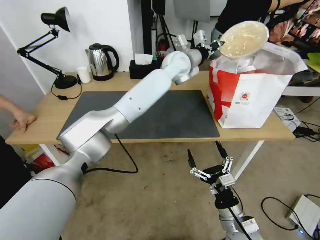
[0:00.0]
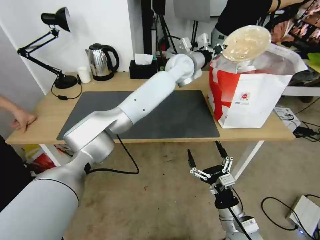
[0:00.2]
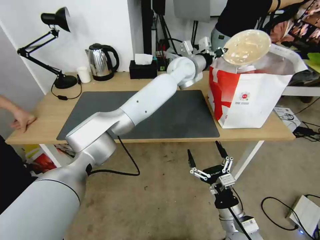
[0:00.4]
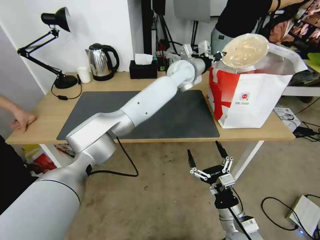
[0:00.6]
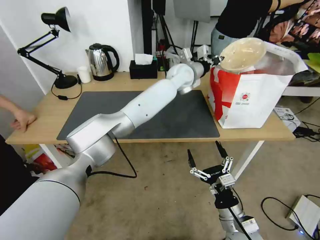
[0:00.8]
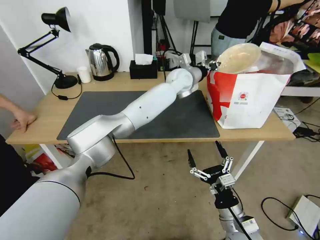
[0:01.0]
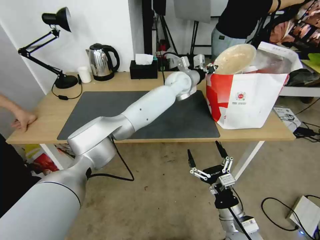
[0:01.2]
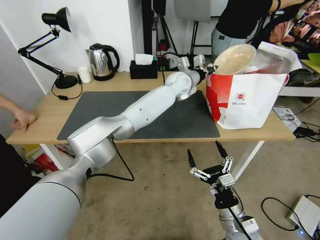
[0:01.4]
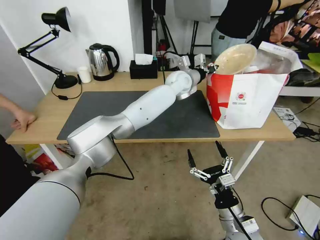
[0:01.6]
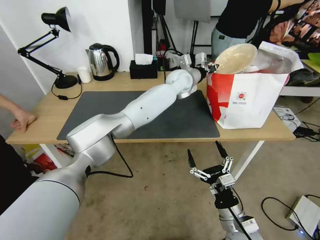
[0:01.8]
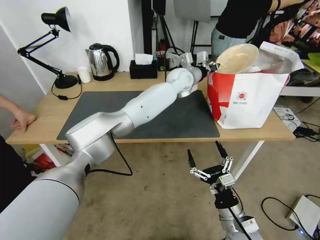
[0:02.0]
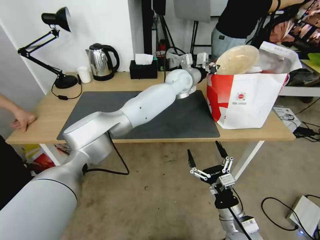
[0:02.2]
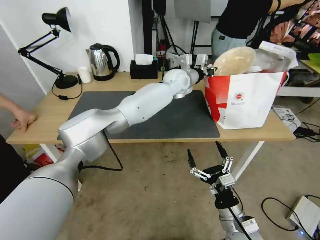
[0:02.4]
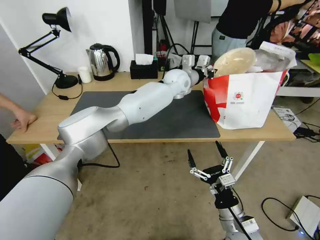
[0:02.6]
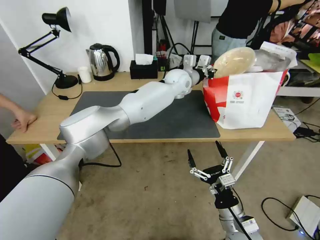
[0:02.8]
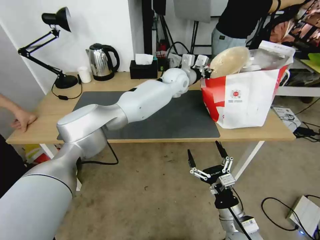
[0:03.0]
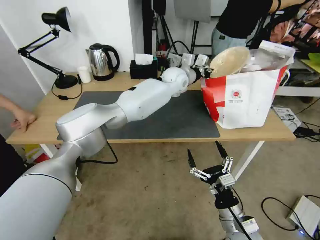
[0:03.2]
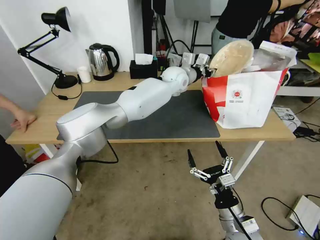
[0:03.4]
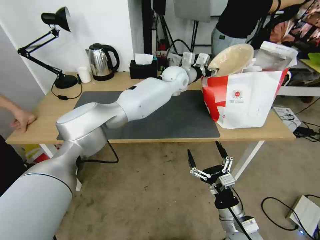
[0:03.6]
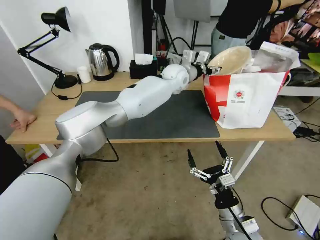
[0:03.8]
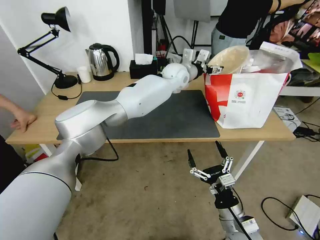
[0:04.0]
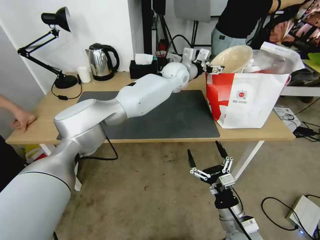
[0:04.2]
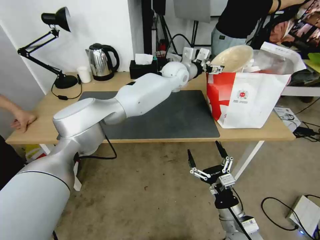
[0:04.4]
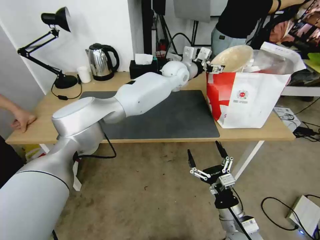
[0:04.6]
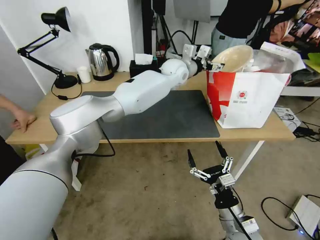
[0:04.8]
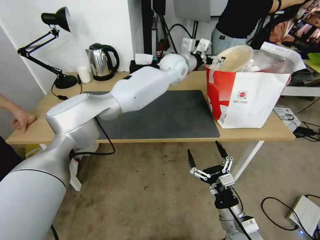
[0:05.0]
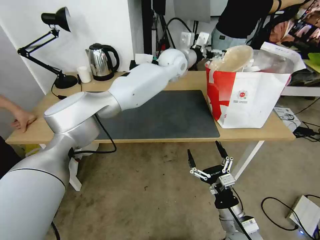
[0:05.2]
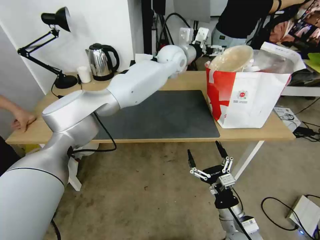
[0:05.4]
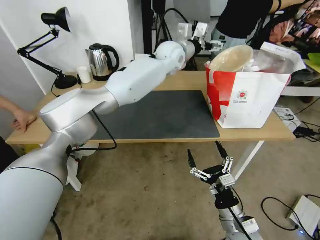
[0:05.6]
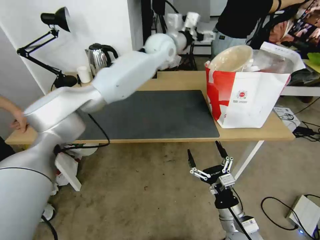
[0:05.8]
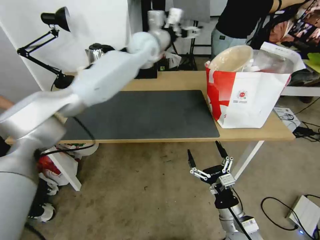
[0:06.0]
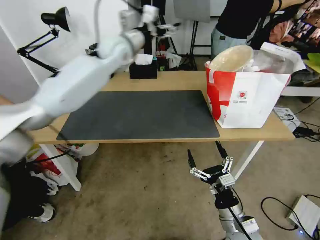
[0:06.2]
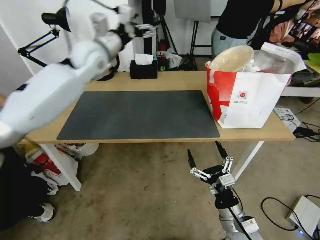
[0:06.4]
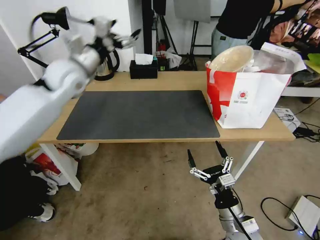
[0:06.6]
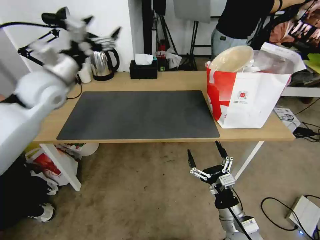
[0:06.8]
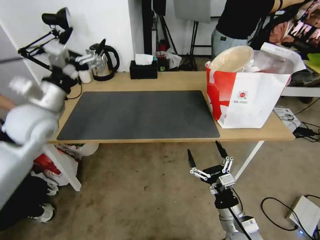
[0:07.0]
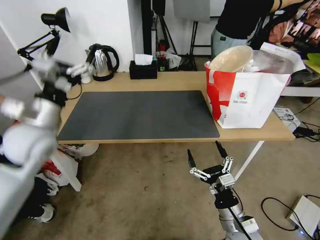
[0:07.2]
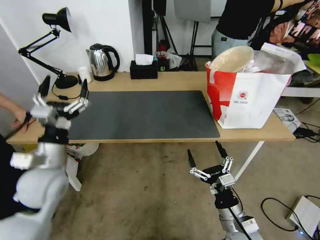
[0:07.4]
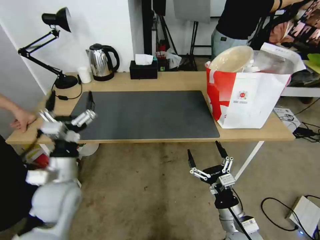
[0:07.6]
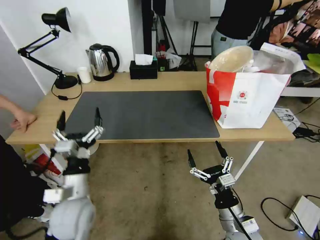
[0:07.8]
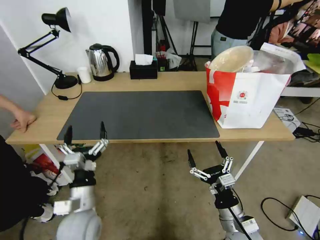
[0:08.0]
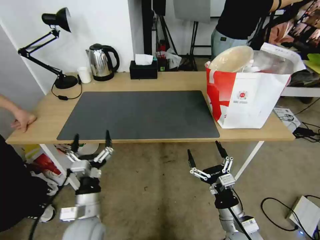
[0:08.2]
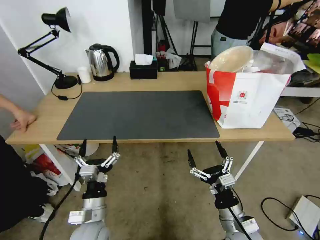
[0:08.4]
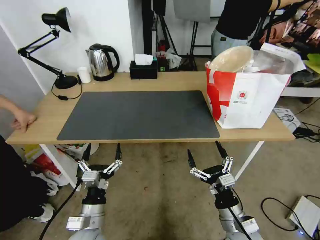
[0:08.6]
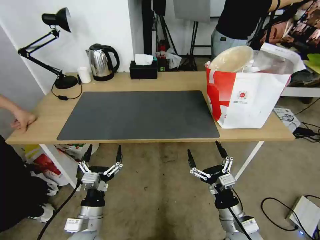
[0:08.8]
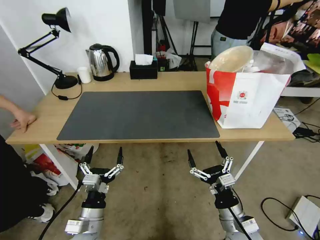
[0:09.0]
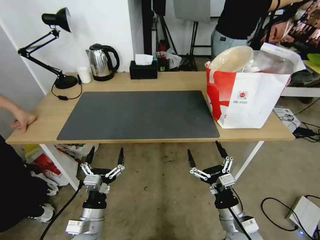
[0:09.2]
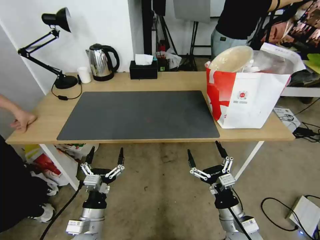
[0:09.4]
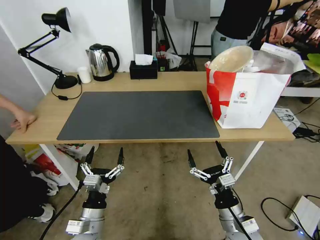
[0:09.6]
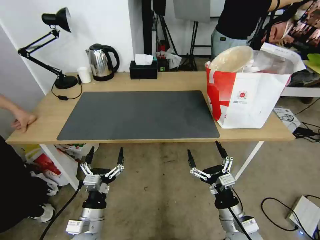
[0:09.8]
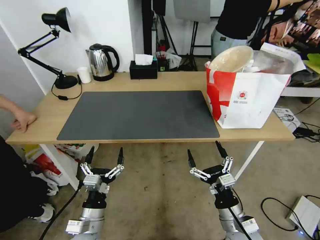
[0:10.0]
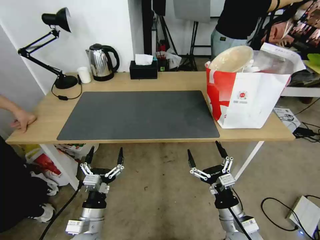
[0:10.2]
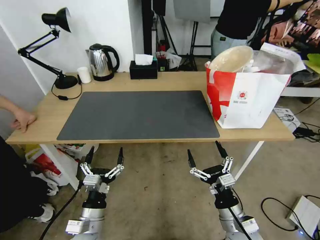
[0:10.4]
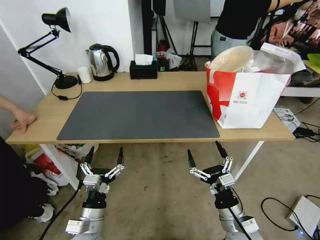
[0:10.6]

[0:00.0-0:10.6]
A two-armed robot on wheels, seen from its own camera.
Task of the whole recording: Pick up the trash from the table and place it into the takeout bag.
0:00.0 to 0:01.6: The left gripper shifts some 5 cm downward.
0:03.0 to 0:04.6: The left gripper opens.
0:04.6 to 0:06.0: The left gripper goes about 15 cm to the left and upward.
0:06.0 to 0:07.6: The left gripper is displaced backward, downward and to the left by approximately 50 cm.
0:07.6 to 0:09.0: The left gripper is displaced downward, backward and to the right by about 15 cm.
0:09.0 to 0:10.6: Both grippers stay about where they are.
